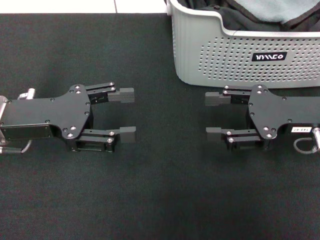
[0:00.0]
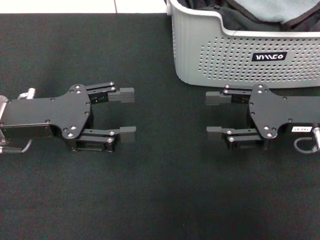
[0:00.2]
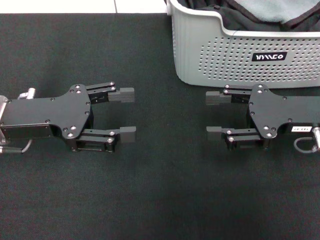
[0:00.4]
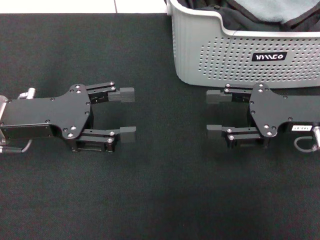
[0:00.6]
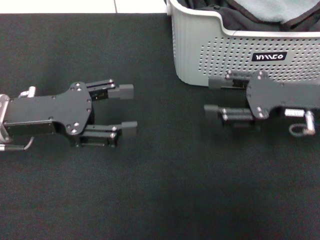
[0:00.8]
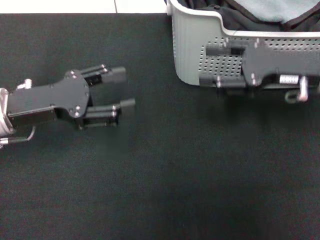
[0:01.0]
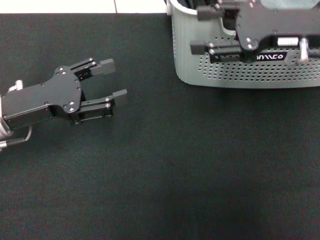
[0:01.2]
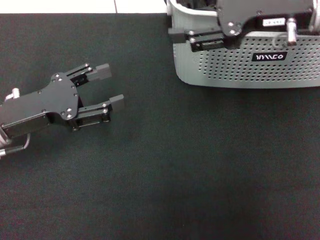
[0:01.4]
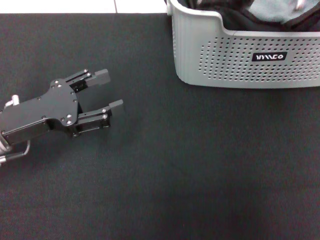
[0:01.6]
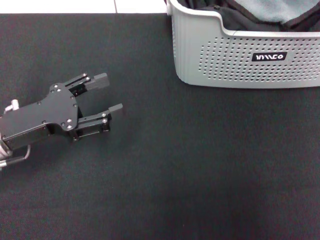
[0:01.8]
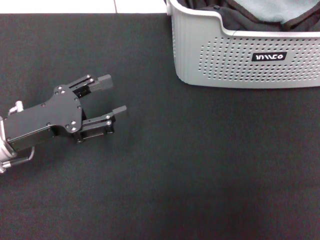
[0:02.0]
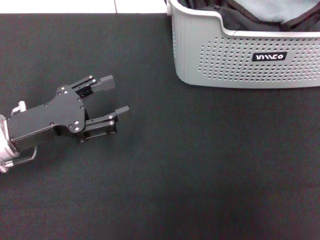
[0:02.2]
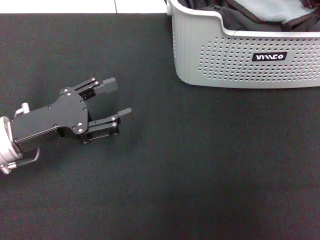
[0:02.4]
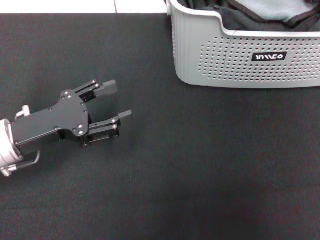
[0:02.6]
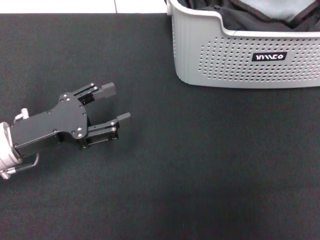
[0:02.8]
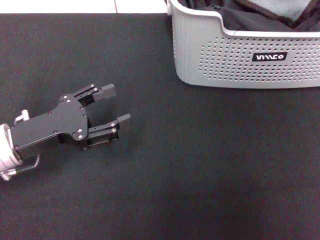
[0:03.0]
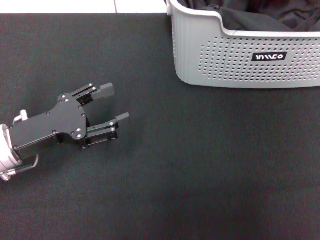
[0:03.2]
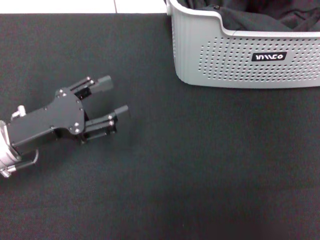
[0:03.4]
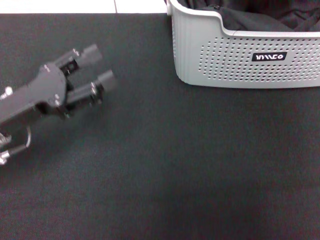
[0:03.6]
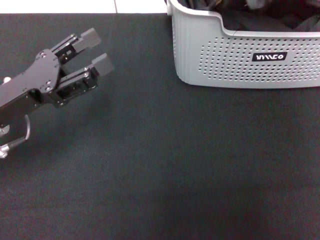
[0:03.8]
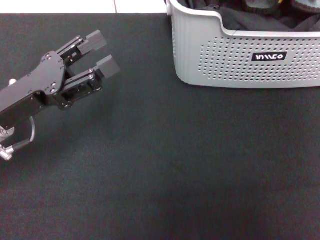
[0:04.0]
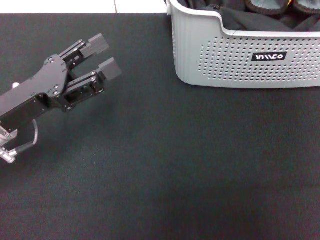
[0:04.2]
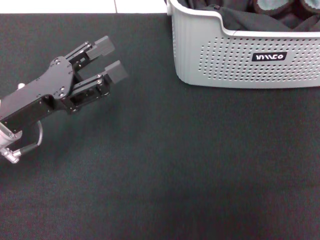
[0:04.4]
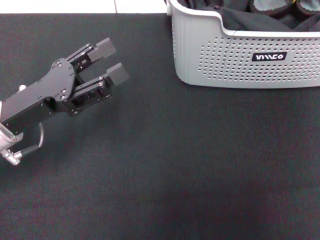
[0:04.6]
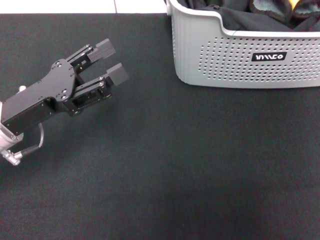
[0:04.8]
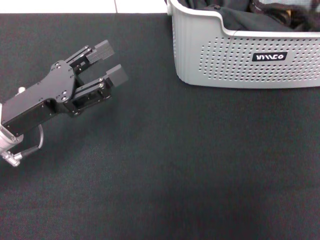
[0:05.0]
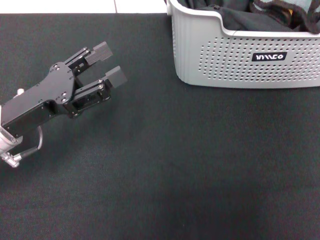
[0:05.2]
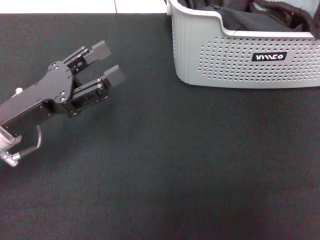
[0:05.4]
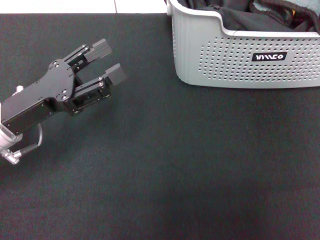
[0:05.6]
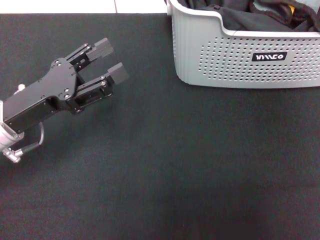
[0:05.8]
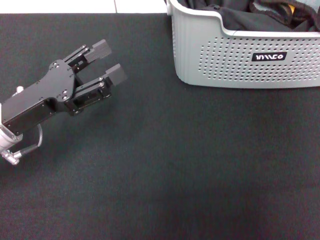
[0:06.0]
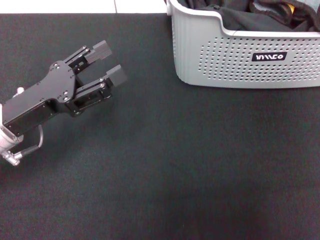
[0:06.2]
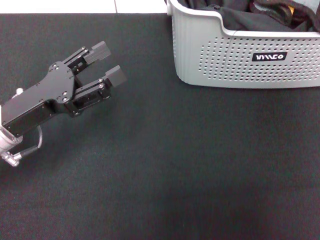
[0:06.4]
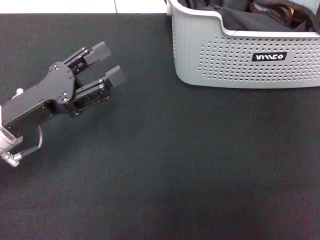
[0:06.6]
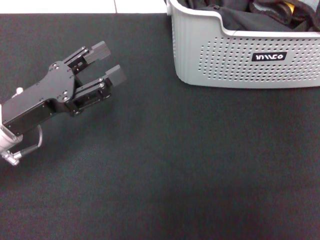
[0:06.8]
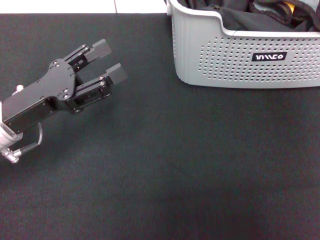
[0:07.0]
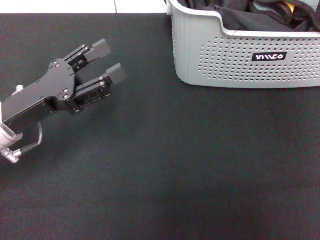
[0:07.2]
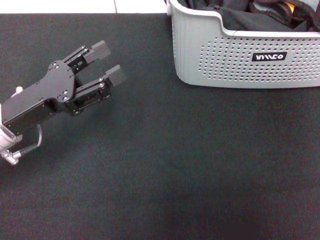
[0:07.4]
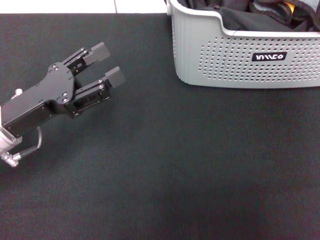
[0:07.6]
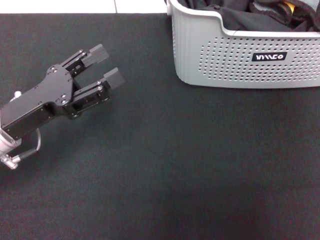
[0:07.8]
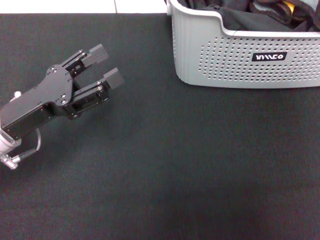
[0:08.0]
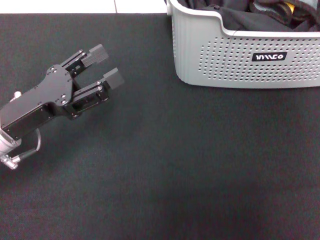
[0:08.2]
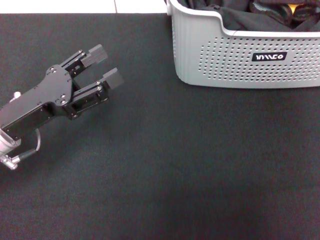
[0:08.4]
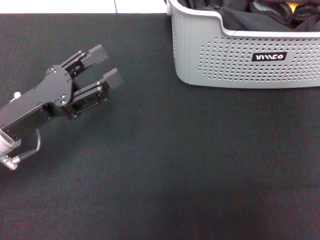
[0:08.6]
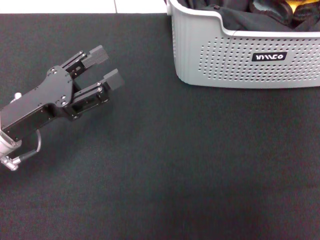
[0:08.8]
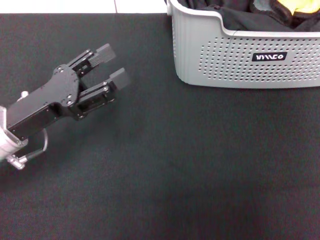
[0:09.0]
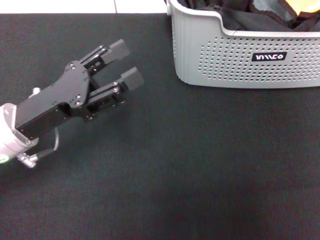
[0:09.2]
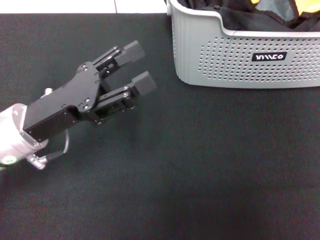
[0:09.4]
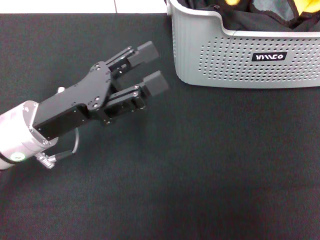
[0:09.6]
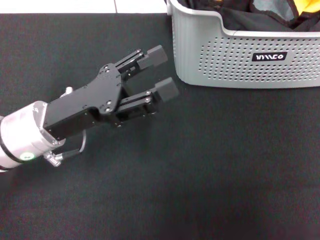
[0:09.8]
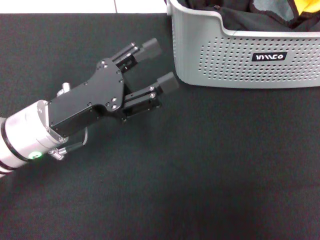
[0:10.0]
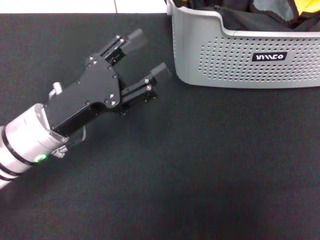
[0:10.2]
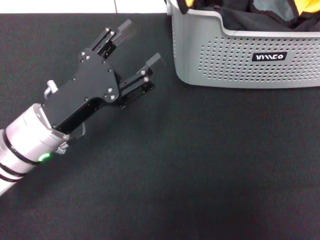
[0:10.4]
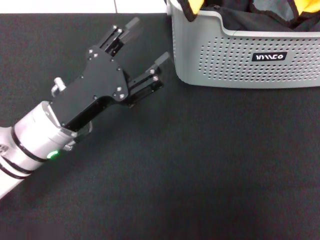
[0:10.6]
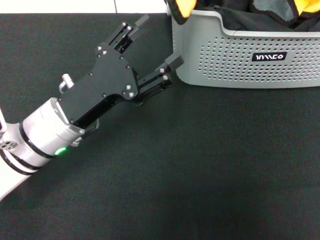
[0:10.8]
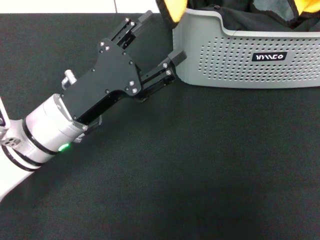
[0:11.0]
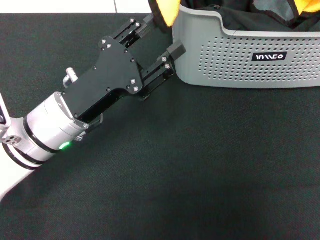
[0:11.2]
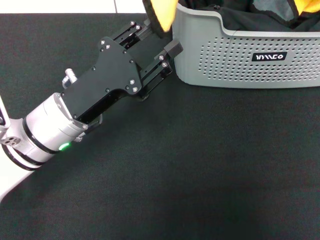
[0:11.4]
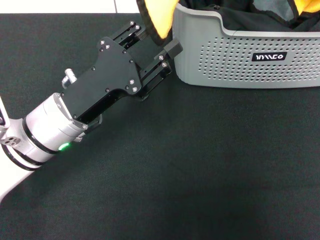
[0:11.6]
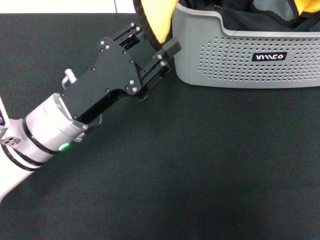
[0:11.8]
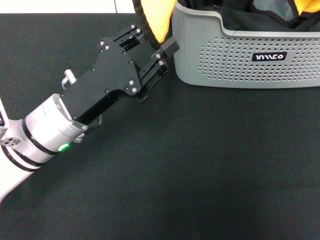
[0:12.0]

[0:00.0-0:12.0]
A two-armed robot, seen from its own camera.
Task of the whole recording: pick up the towel from the storage box and lay it flat on the black tablecloth.
Step, 0:00.0 to 0:02.6: Pick up a towel with the right gripper.
0:00.0 to 0:01.6: The right gripper goes approximately 15 cm upward.
0:01.6 to 0:03.0: The right gripper heads to the right, covering approximately 10 cm, and closes up.
0:03.0 to 0:04.4: The right gripper shifts about 10 cm to the right.
0:04.4 to 0:06.0: The right gripper is displaced upward by some 5 cm, and opens.
0:07.6 to 0:09.0: The right gripper closes.
0:09.0 to 0:10.4: The left gripper travels to the right by some 5 cm, while the right gripper is displaced to the left and upward by some 10 cm.
0:10.4 to 0:12.0: There are only small adjustments of the grippers.

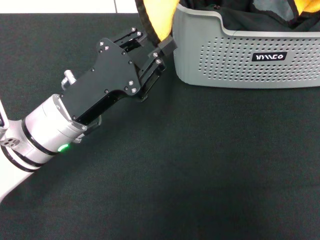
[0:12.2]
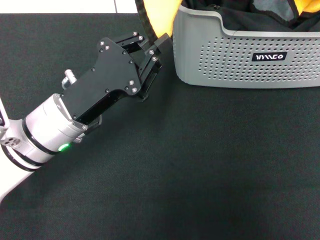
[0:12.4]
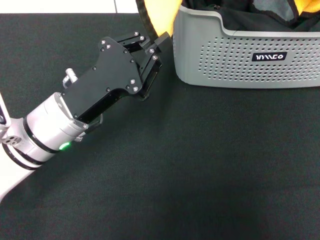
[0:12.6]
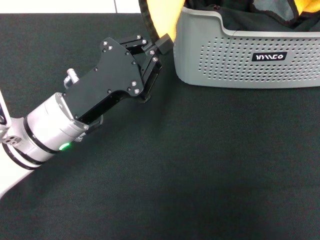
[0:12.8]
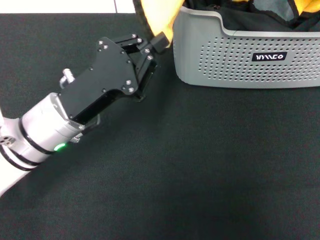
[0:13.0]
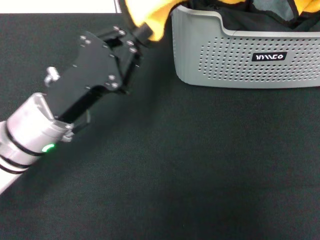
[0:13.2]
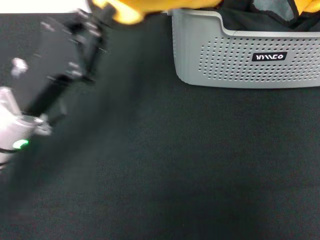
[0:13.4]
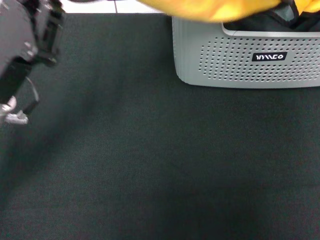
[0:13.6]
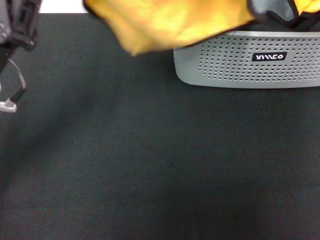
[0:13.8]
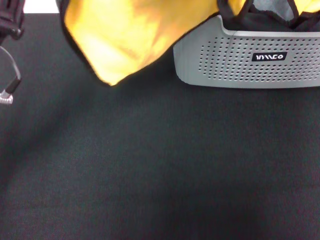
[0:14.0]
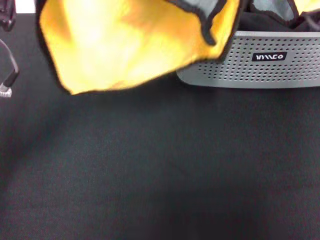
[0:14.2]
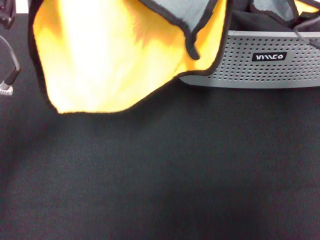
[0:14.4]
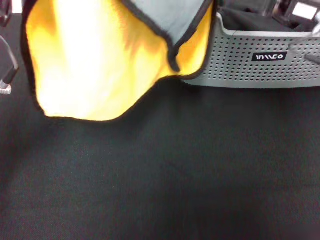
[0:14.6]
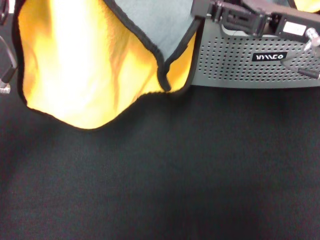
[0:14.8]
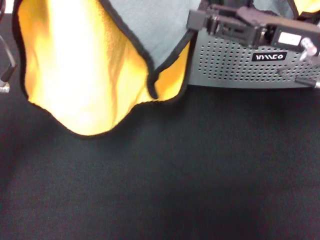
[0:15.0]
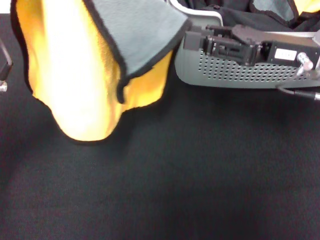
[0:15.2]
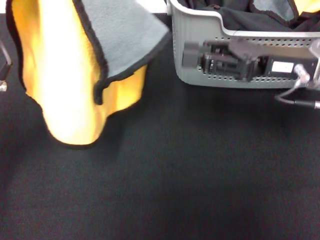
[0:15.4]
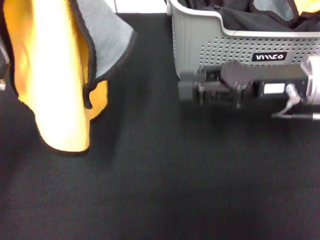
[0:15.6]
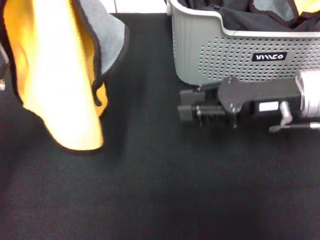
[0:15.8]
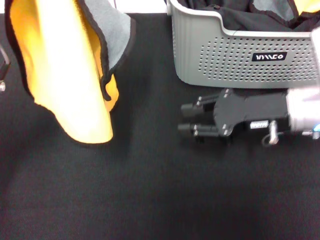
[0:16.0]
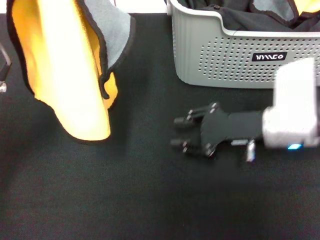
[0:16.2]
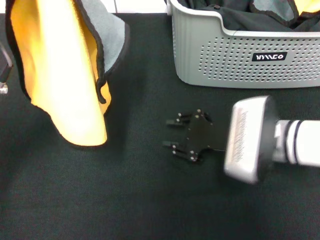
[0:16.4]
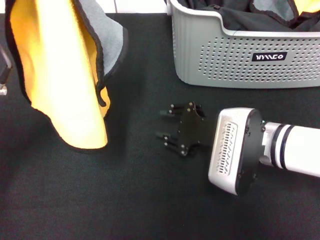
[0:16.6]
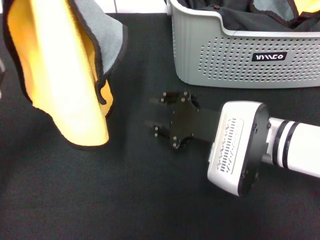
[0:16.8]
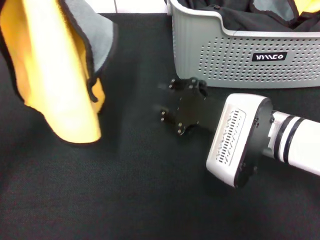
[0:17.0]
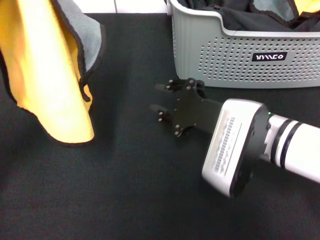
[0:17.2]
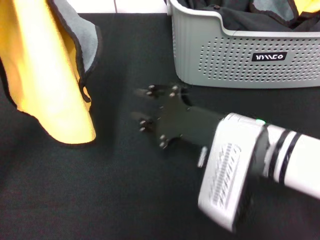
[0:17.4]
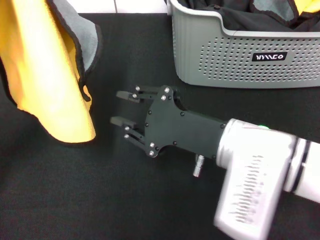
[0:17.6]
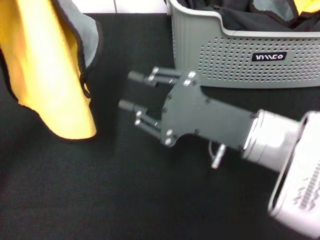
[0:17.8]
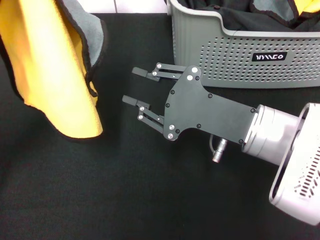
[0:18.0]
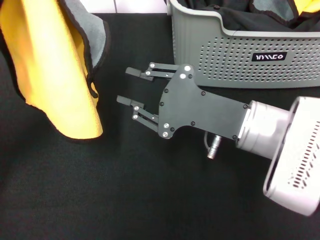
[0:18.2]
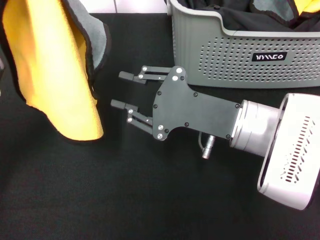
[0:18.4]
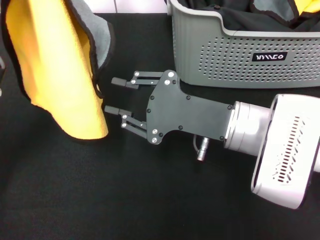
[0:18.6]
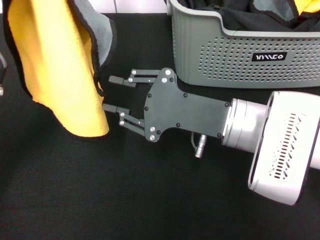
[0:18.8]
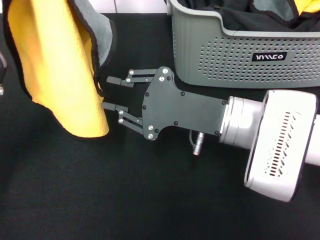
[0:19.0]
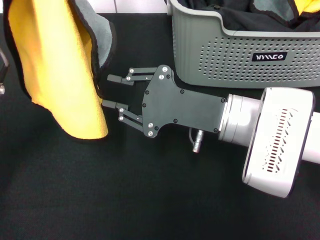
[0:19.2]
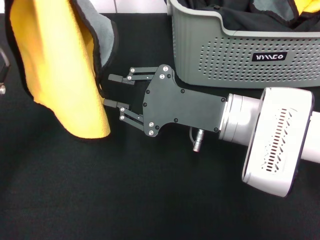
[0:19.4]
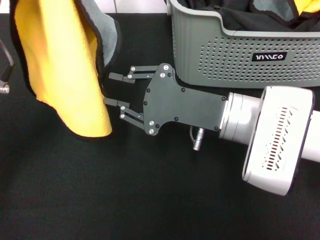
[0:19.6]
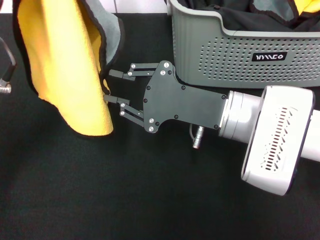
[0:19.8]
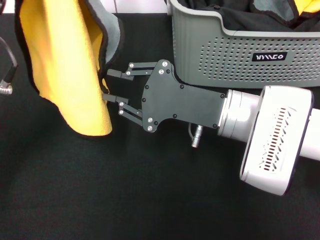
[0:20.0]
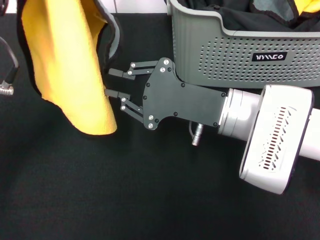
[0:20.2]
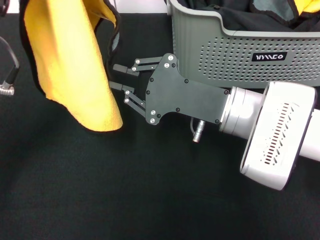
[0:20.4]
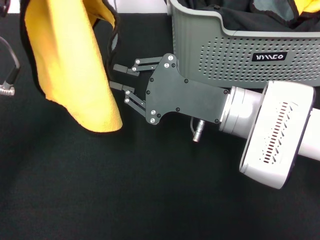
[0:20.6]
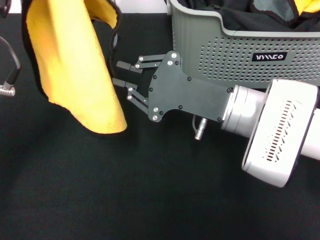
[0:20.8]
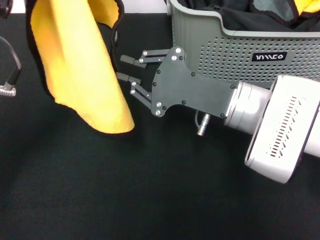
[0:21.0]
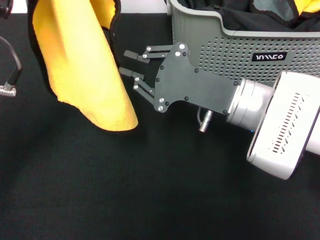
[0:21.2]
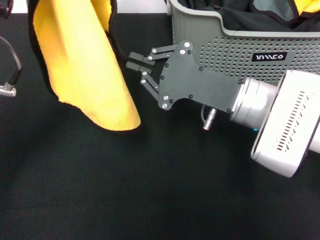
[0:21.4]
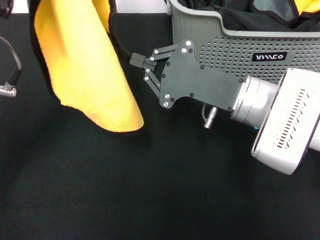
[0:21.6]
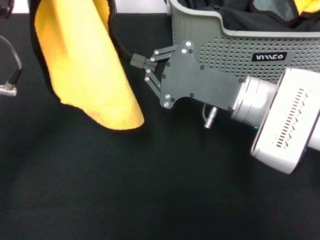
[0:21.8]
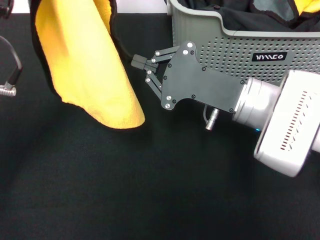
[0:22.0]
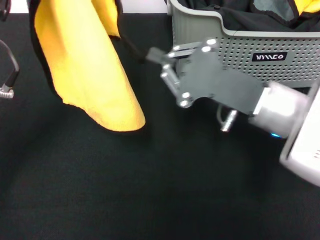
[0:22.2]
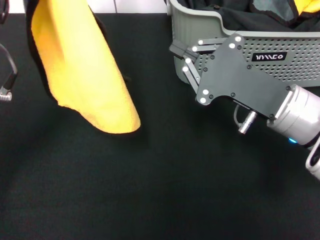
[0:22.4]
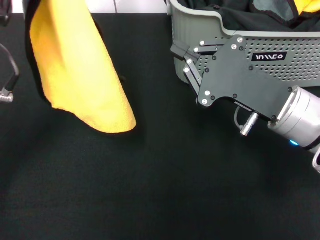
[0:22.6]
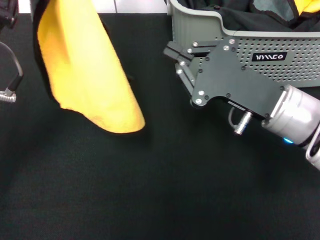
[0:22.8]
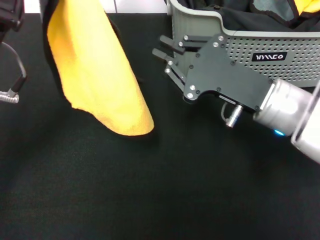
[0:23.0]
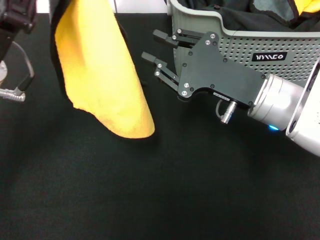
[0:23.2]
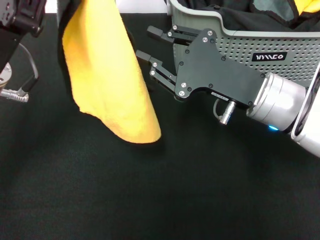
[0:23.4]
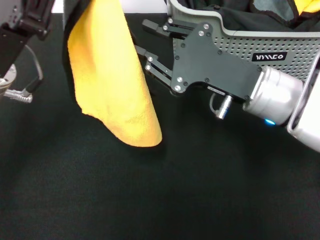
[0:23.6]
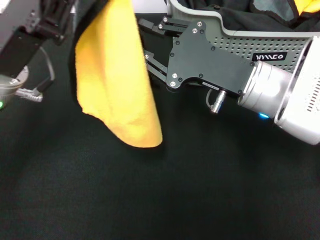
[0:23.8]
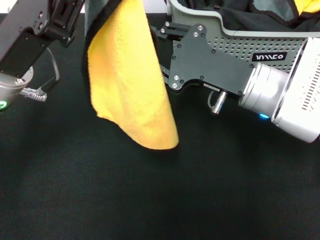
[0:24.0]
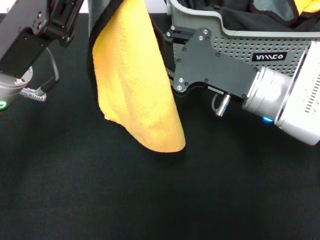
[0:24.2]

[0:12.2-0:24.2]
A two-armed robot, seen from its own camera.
Task of the whole recording: pick up the towel from the storage box and lay it flat on the black tablecloth.
0:12.2 to 0:13.8: The left gripper moves to the left and upward, about 10 cm, and closes its fingers. Meanwhile the right gripper heads downward, covering about 5 cm.
0:13.8 to 0:15.2: The right gripper travels downward by about 10 cm, and opens its fingers.
0:15.2 to 0:16.6: The right gripper travels downward, to the left and backward by roughly 15 cm.
0:16.6 to 0:18.2: The right gripper is displaced upward by roughly 5 cm.
0:21.2 to 0:22.6: The right gripper moves roughly 5 cm.
0:22.6 to 0:24.2: The right gripper opens.
